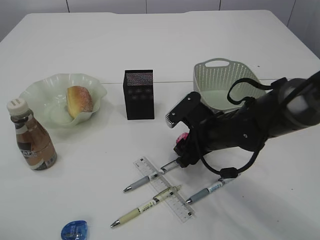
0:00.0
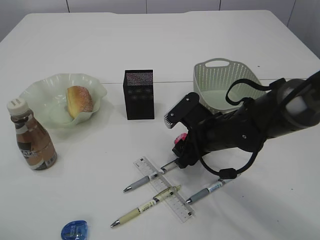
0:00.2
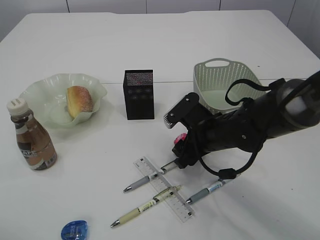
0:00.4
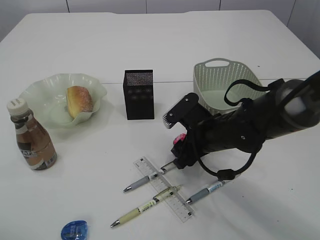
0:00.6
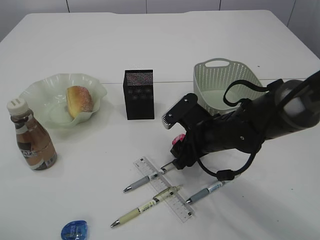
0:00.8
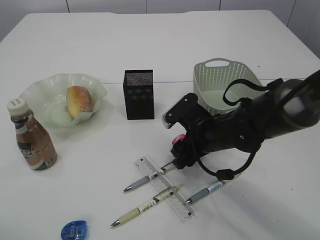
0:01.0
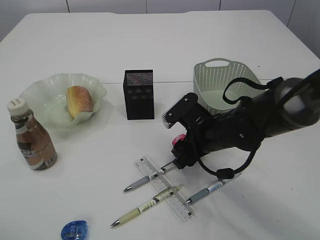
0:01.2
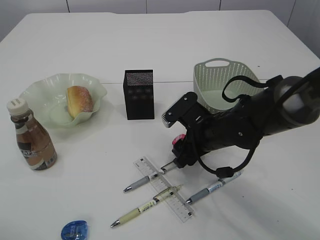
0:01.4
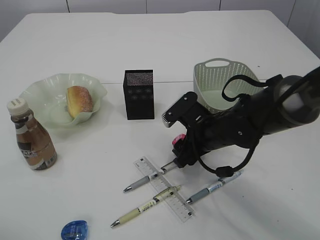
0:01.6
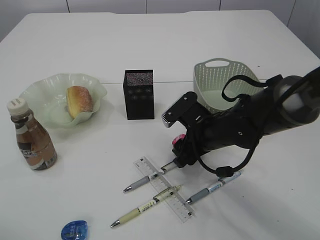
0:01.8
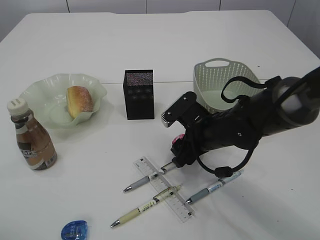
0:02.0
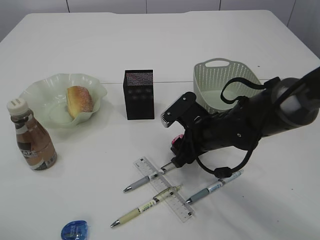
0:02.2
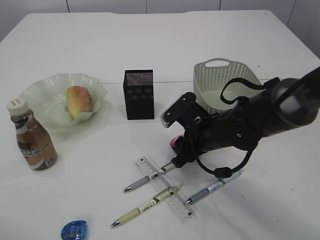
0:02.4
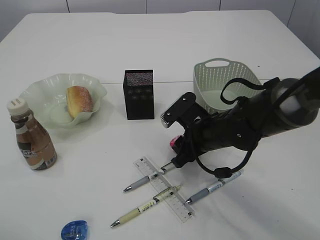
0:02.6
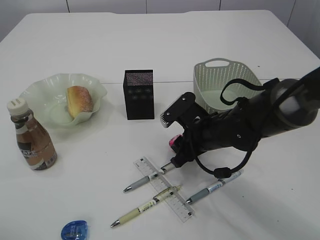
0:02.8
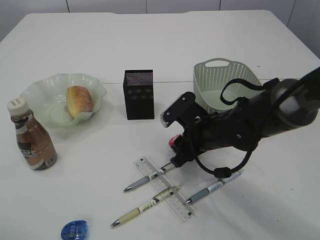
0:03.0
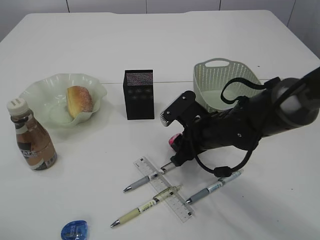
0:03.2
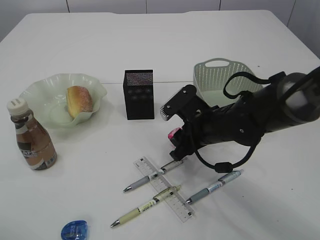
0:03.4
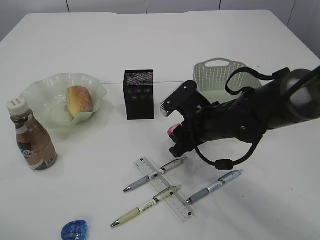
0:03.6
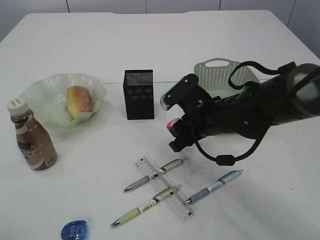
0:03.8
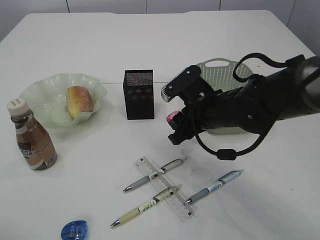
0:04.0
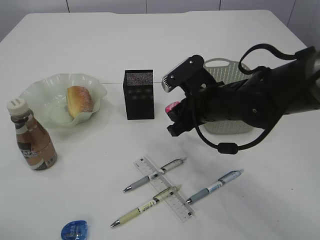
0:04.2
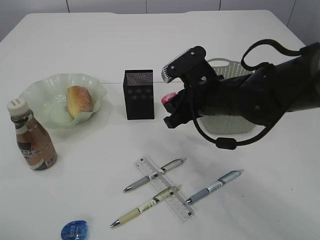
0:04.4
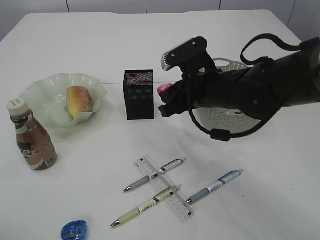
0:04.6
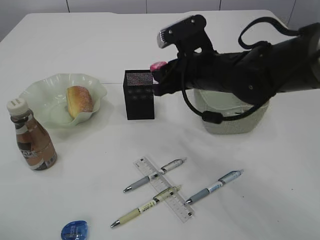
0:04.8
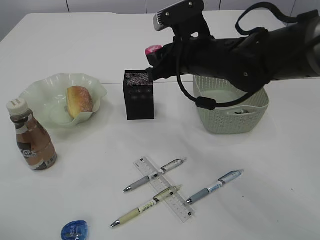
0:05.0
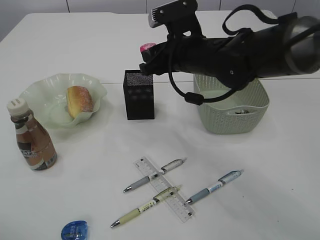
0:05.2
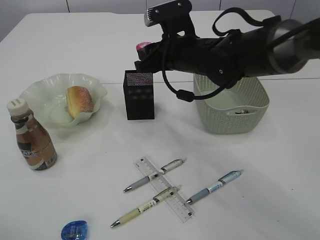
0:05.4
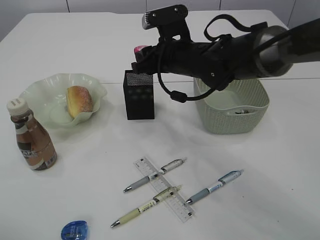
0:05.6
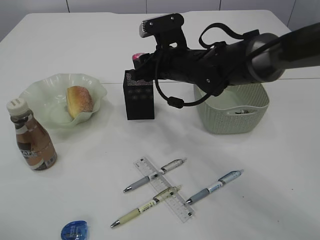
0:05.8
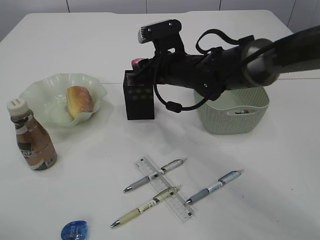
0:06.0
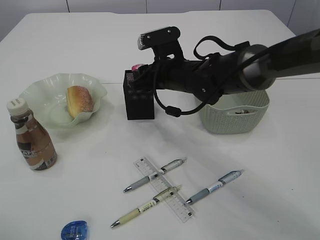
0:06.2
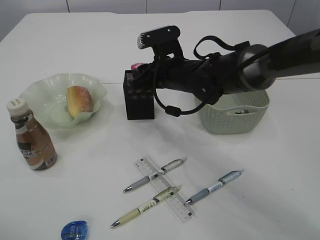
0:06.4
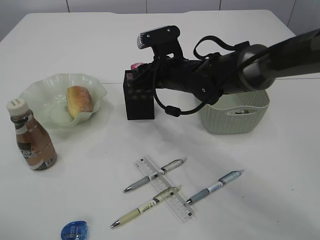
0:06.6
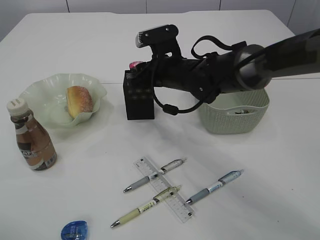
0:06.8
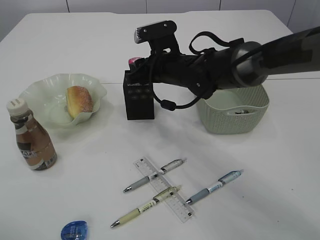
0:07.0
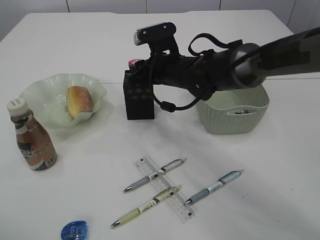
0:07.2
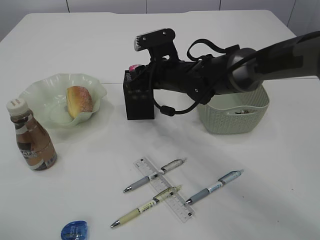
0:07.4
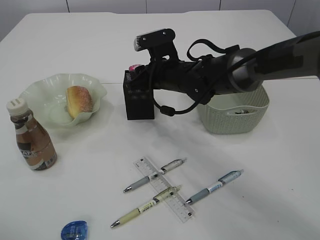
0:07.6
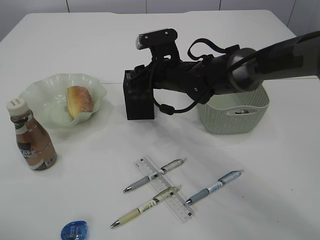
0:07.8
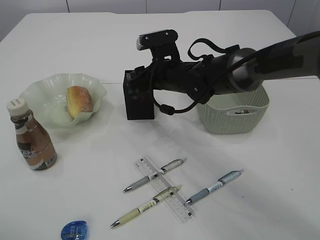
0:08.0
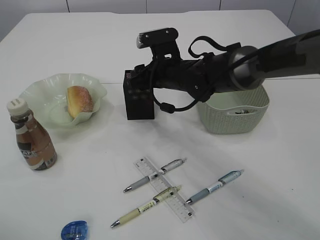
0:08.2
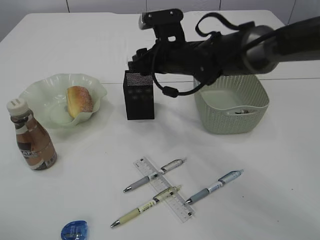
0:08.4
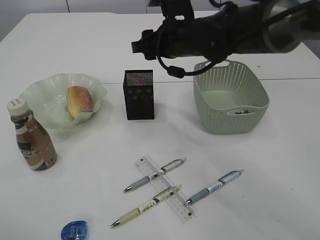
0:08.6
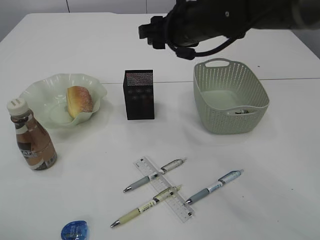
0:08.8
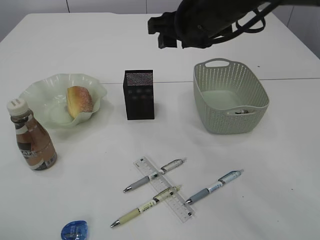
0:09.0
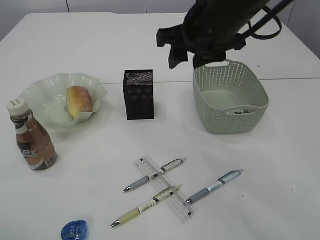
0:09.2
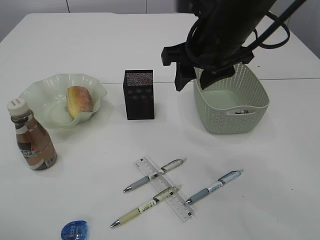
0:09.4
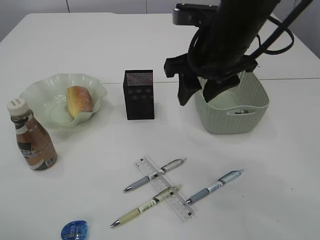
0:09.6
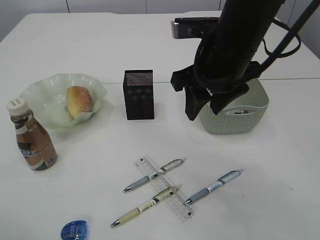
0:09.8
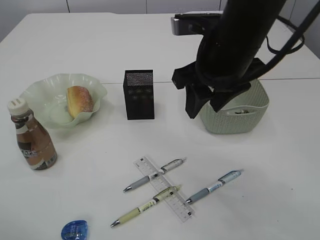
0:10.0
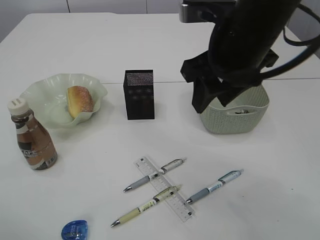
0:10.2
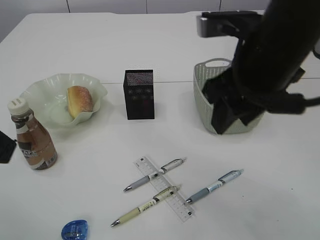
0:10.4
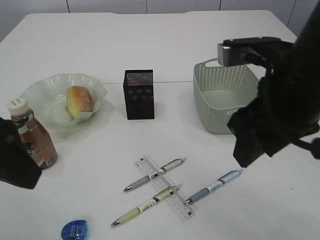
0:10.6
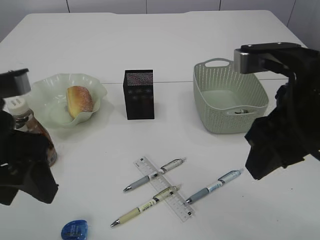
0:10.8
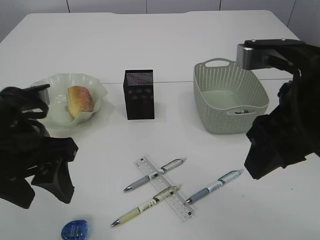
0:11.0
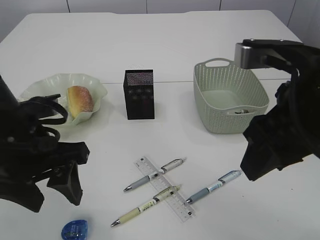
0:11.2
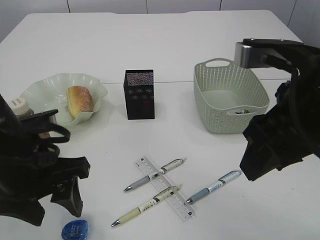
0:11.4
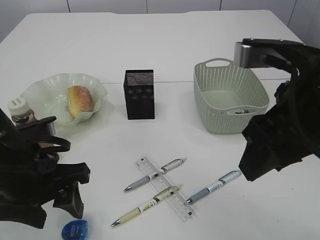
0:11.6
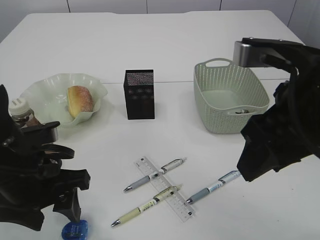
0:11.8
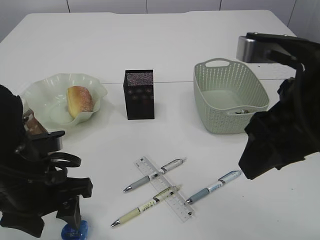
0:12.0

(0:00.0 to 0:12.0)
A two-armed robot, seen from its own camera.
Step, 0:00.0 - 0:03.6: Pick up the red pencil sharpener.
Step, 0:03.8 - 0:08.6: Place the red pencil sharpener into the pen holder.
0:00.0 - 0:03.0: The two grippers keep their place.
0:03.0 - 0:04.4: The right gripper shifts some 10 cm upward.
0:04.4 - 0:06.0: The right gripper travels forward by roughly 10 cm.
0:06.0 - 0:07.6: There are only small adjustments of the grippers.
0:07.6 - 0:09.0: The right gripper goes some 15 cm upward and backward.
0:09.0 - 0:10.4: The right gripper travels backward by approximately 10 cm. The left gripper is displaced to the right by roughly 5 cm.
0:10.4 - 0:12.0: The left gripper travels downward by approximately 20 cm. The right gripper heads backward, covering approximately 10 cm.

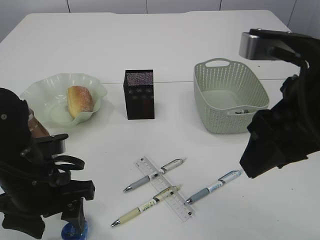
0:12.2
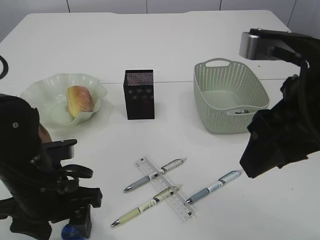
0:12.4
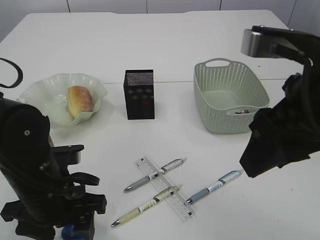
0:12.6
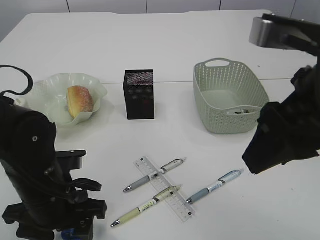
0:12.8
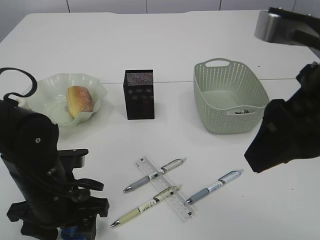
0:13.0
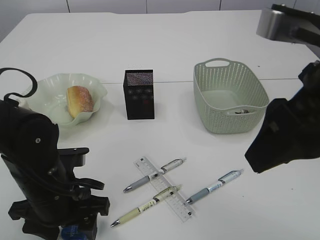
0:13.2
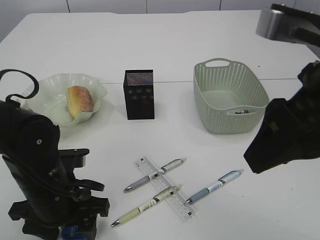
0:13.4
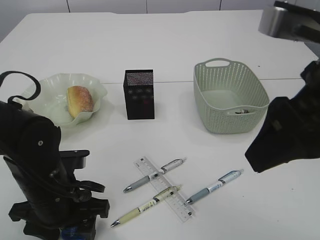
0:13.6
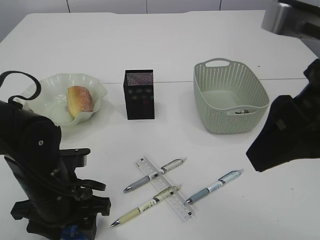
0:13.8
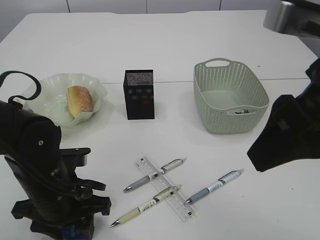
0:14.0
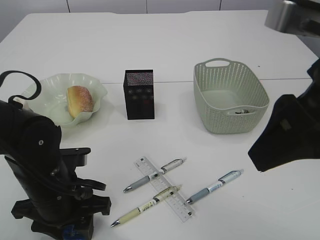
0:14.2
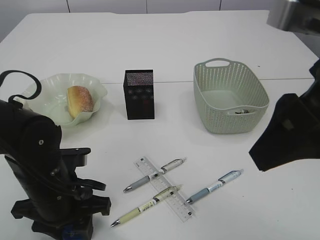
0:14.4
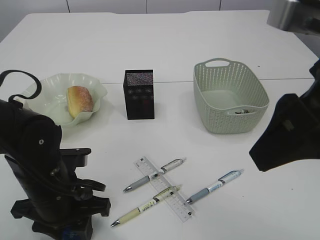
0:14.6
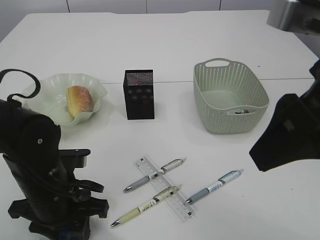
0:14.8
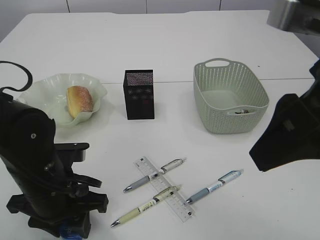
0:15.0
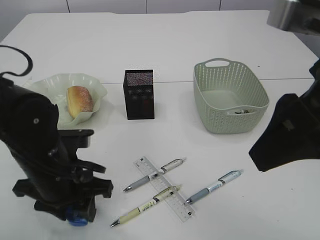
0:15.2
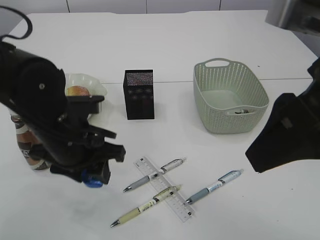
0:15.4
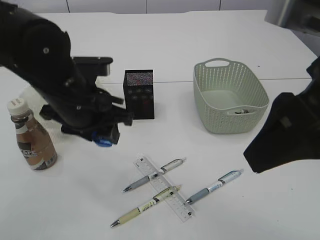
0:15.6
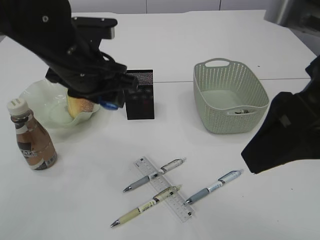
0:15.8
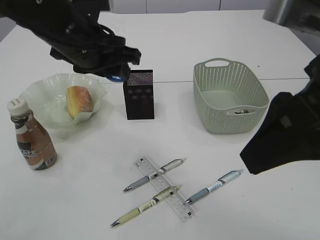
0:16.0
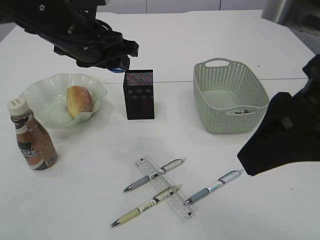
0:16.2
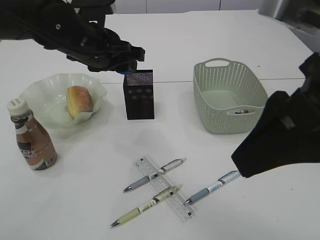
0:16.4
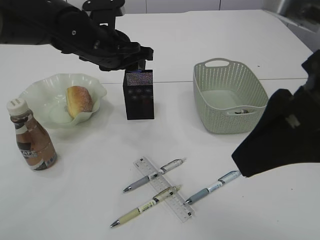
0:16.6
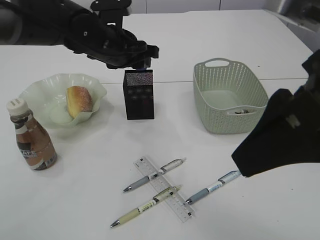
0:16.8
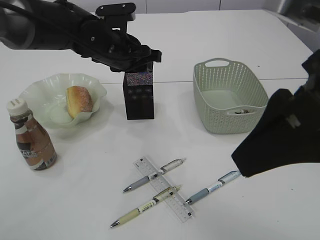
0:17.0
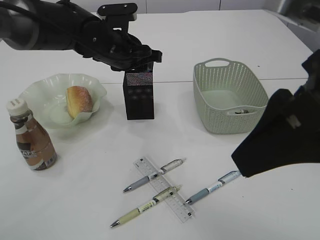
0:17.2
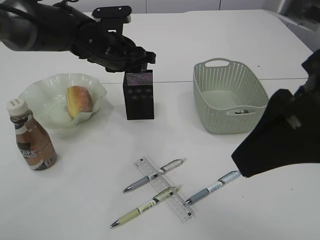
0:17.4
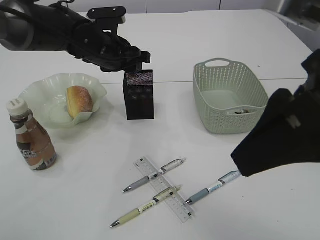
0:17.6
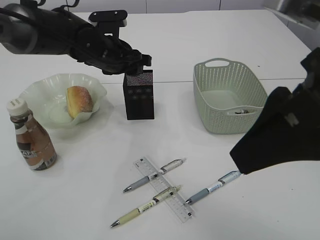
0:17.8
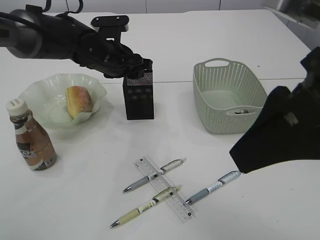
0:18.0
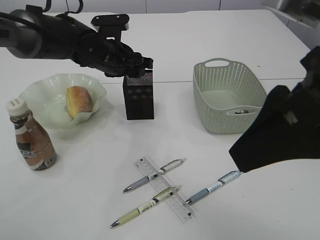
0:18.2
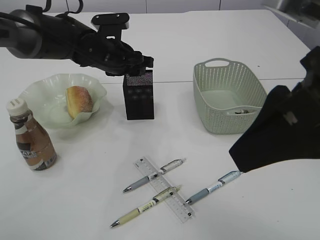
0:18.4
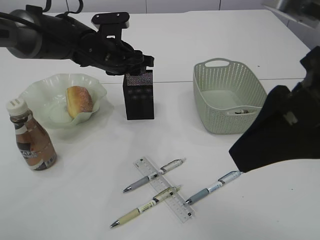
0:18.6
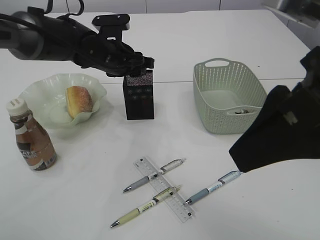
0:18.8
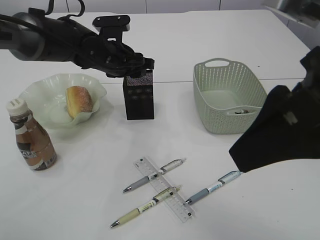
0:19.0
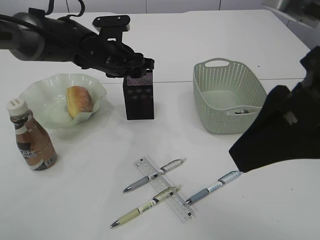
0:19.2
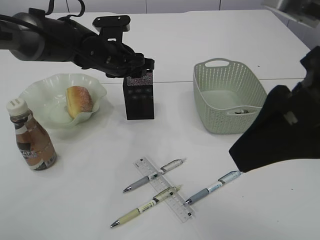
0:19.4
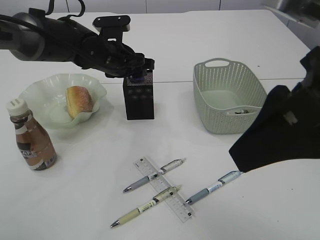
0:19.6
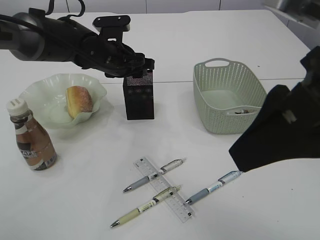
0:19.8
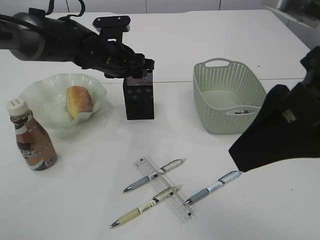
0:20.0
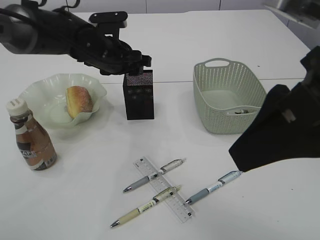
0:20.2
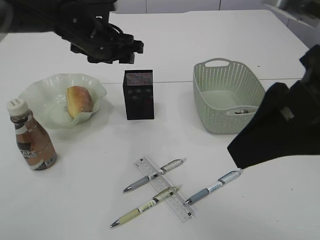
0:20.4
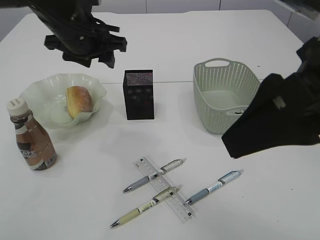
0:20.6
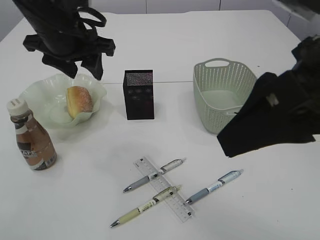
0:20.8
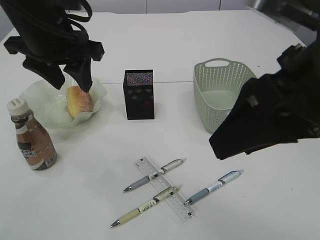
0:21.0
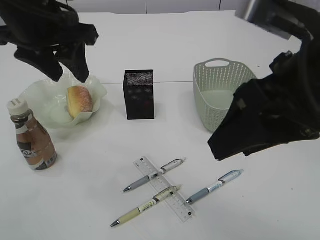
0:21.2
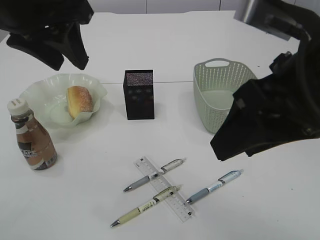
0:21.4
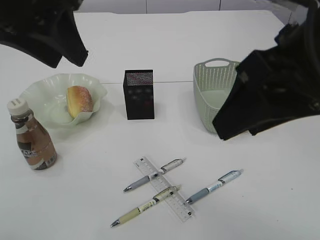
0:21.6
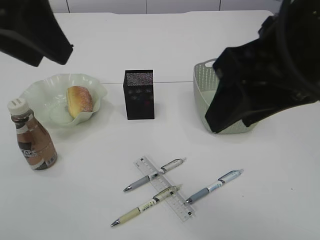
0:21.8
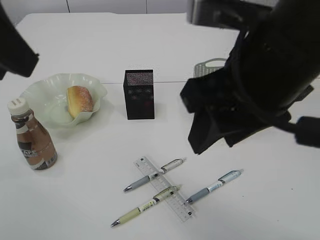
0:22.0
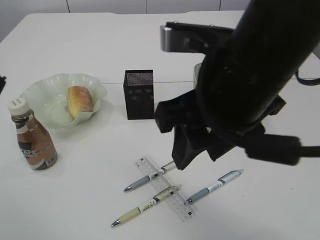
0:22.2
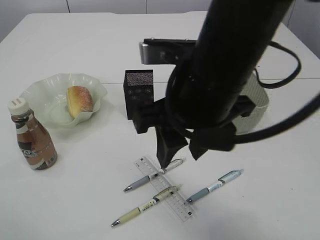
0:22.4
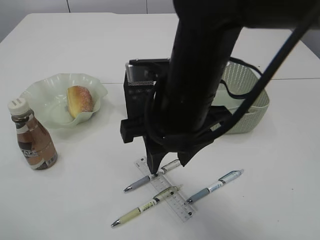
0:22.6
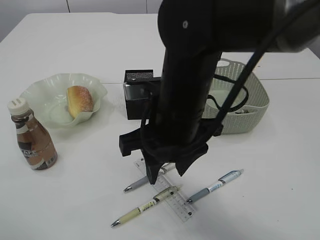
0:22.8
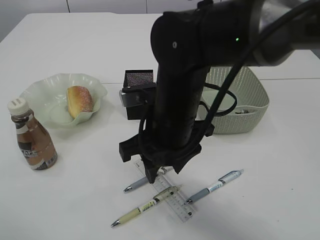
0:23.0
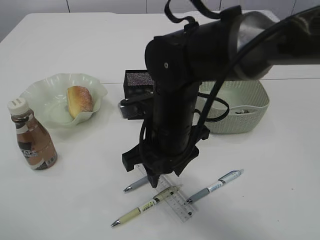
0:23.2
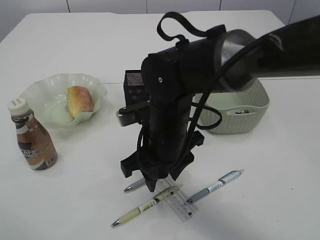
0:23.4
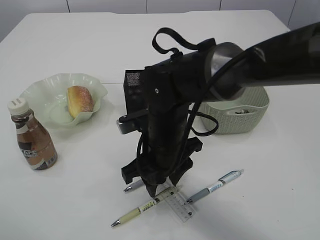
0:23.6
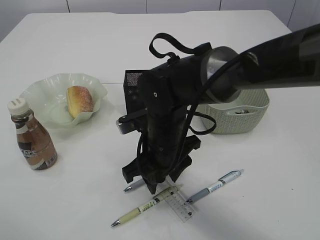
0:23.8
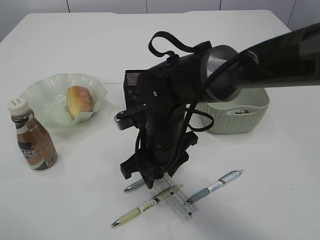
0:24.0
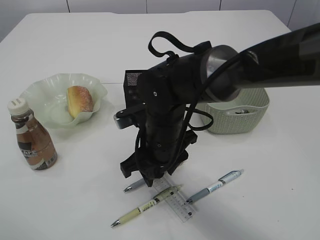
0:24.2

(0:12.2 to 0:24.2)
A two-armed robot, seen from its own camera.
Step, 0:12.2 - 0:15.4: Pick up the blue pencil sharpener.
Step, 0:15.6 - 0:20.4: Place the blue pencil sharpener into the pen holder.
0:12.2 - 0:15.2: The grippers stay close to where they were, moving slightly.
0:15.2 - 0:16.6: The left gripper heads forward and upward, covering approximately 20 cm.
0:16.6 - 0:18.2: The left gripper shifts by about 5 cm.
0:18.2 - 0:19.8: Neither gripper changes place.
0:19.8 - 0:21.2: The left gripper shifts approximately 20 cm upward and backward.
0:21.2 - 0:22.6: The left gripper shifts some 20 cm backward. The right gripper shifts some 15 cm to the left, forward and downward.
0:22.6 - 0:24.2: The right gripper goes approximately 15 cm downward and forward.
